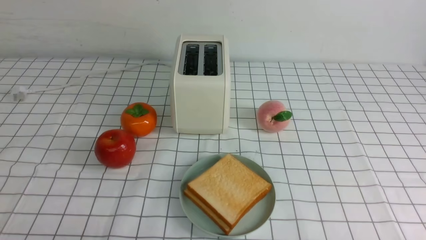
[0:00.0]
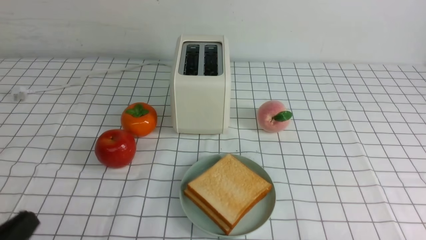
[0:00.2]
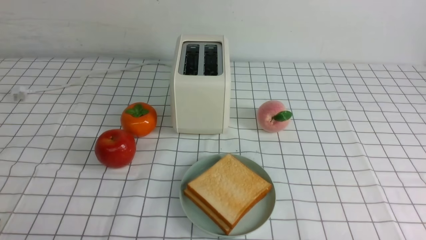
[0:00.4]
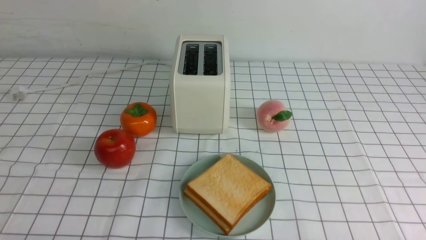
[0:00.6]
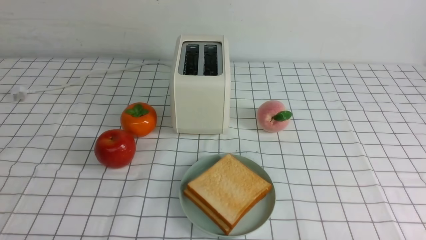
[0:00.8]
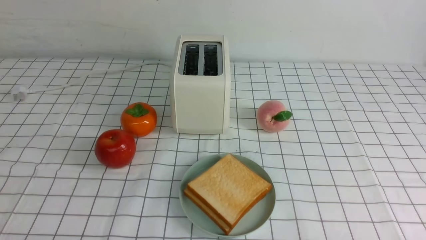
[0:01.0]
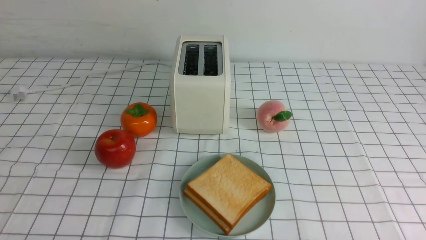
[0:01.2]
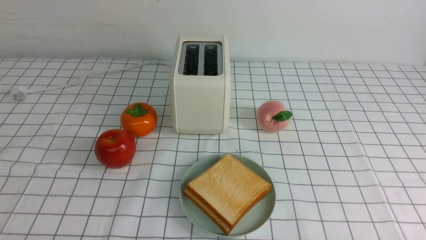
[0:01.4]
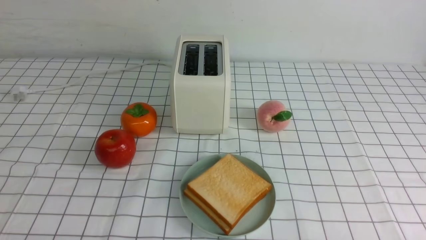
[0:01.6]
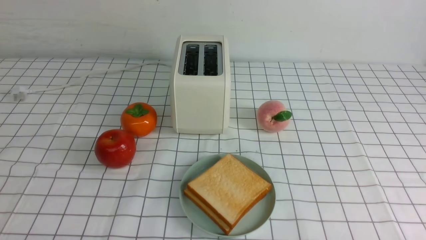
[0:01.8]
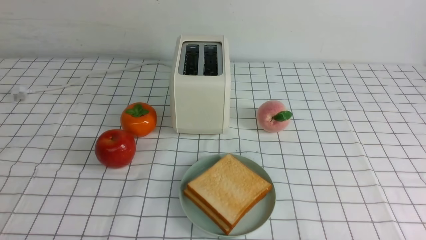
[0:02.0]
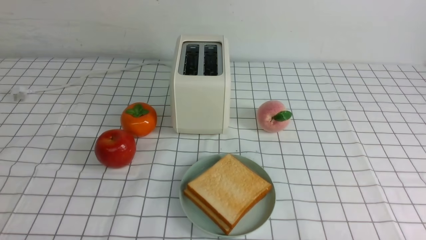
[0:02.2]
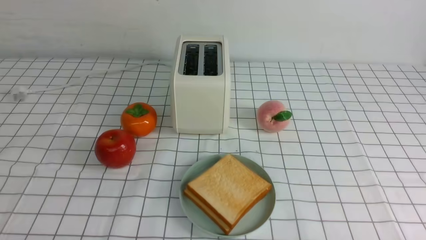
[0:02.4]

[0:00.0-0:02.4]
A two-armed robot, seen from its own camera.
Task of the whole recording: take toasted bread from bread machine on white checkered table place on plate.
0:01.2 to 0:02.4: Both grippers stay put.
